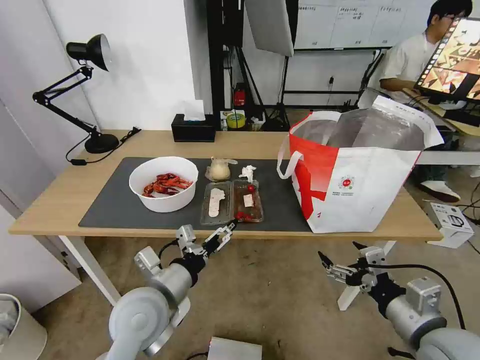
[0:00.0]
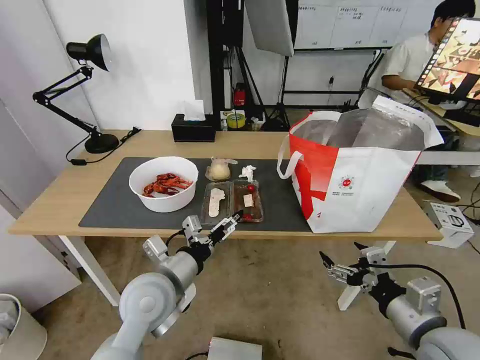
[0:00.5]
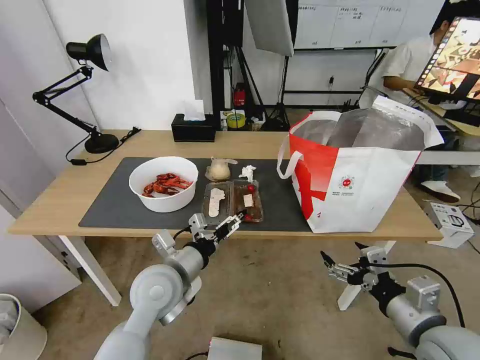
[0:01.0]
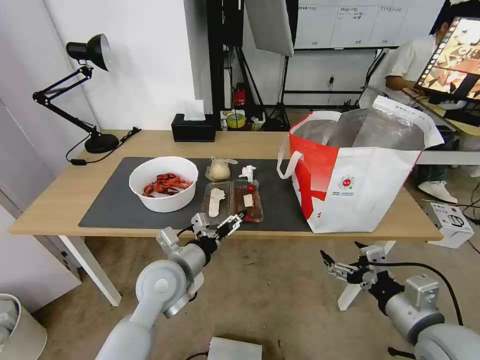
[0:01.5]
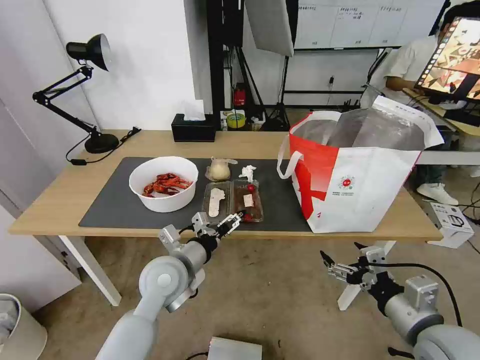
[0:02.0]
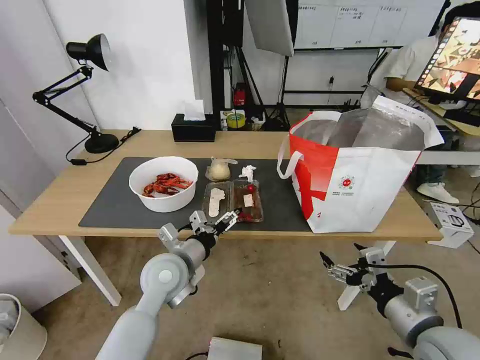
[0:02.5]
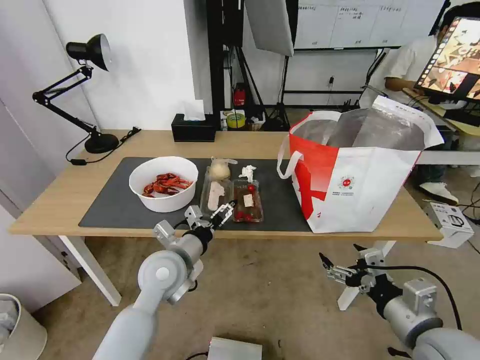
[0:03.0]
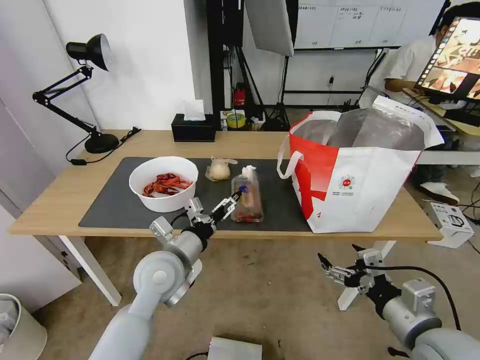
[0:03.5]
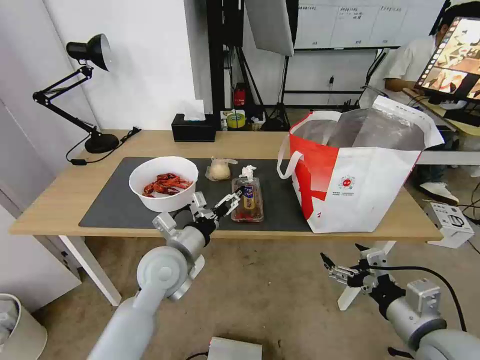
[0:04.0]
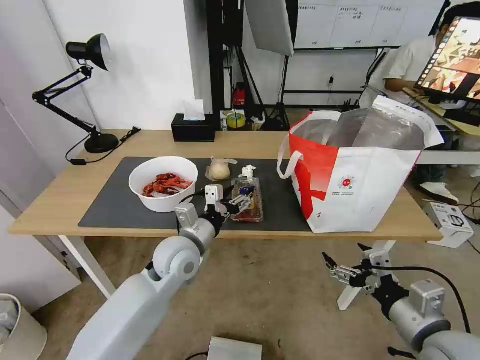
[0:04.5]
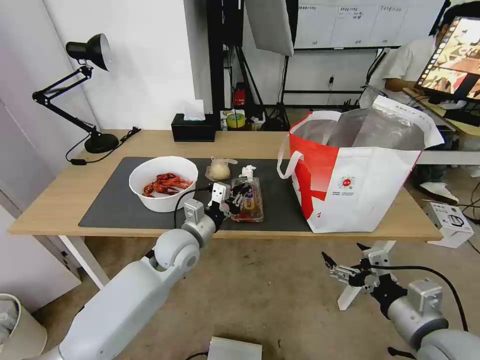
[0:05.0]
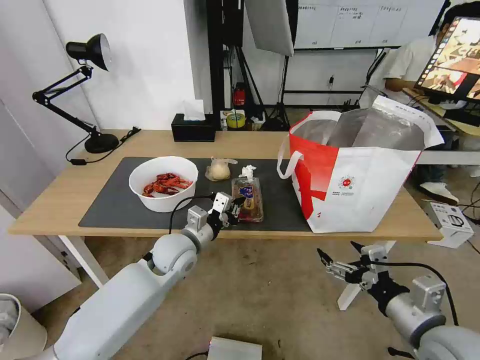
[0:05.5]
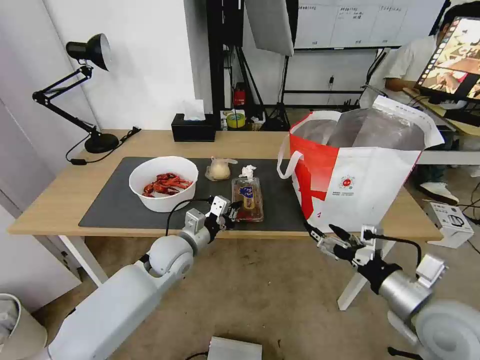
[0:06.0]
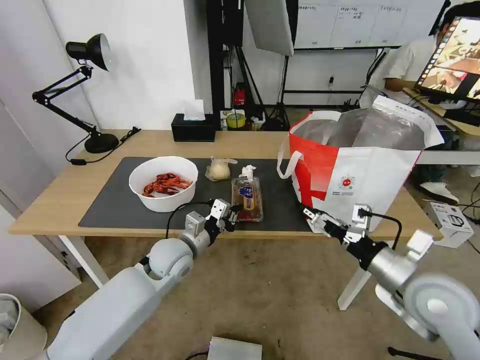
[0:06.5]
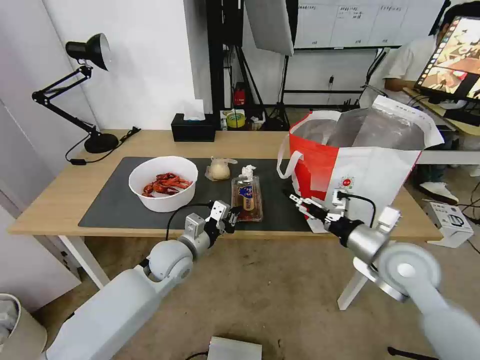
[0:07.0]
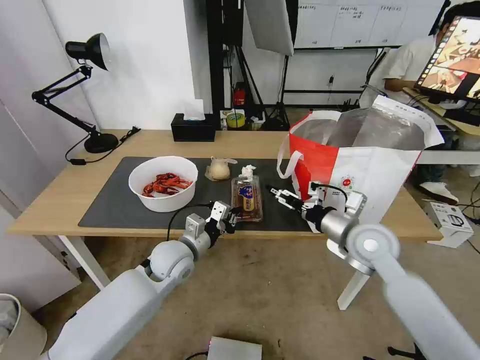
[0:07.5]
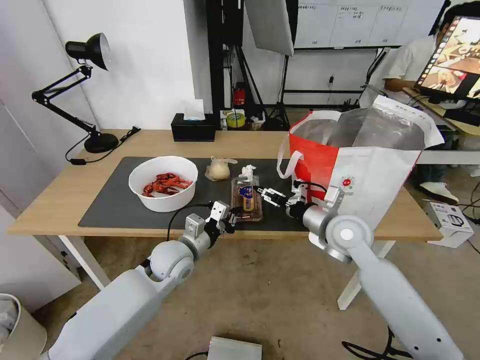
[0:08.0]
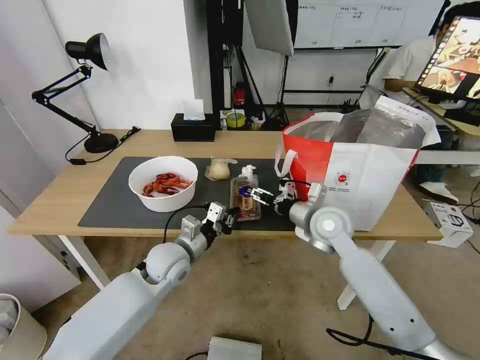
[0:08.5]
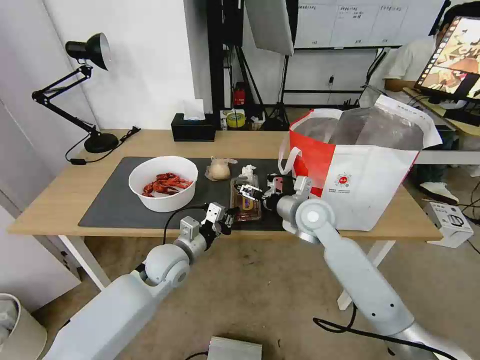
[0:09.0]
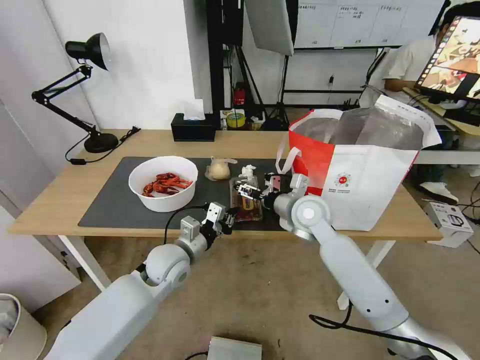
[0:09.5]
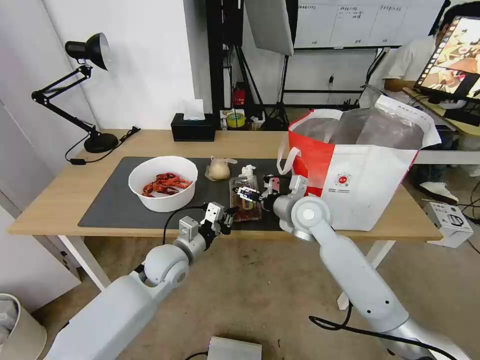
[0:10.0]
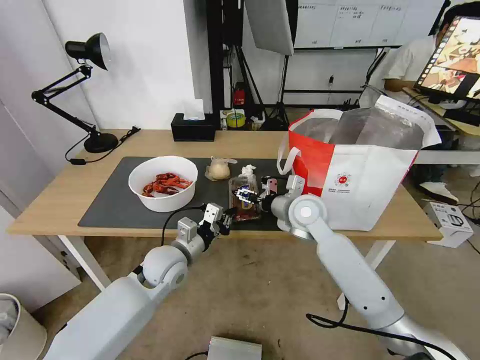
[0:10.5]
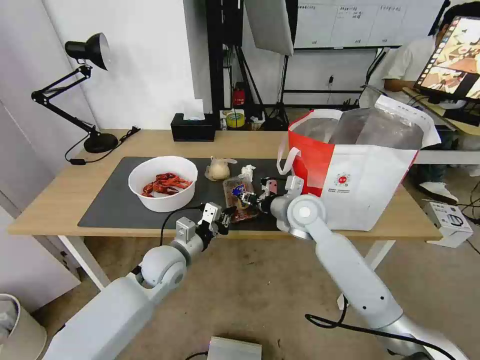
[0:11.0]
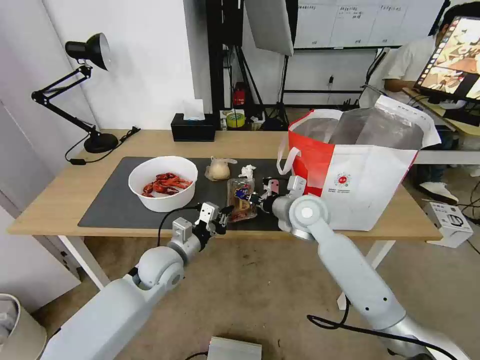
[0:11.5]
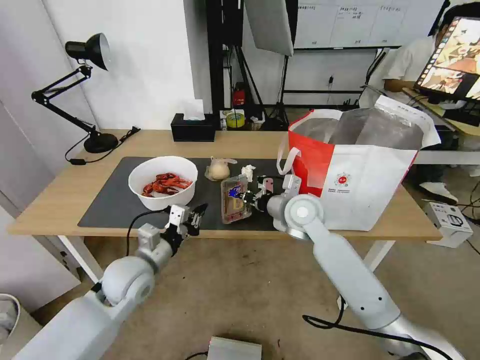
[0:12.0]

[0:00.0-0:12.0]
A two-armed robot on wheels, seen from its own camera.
Task of the whole recording: Pick up the trash from the table and place it into the takeout bag.
0:00.0 to 0:02.0: The left gripper moves forward, some 5 cm.
0:02.0 to 0:04.0: The grippers make only small movements.
0:04.0 to 0:06.0: The left gripper moves forward and downward, some 10 cm, and closes its fingers.
0:06.0 to 0:08.0: The right gripper moves forward and to the left, about 20 cm.
0:08.0 to 0:10.0: The right gripper travels to the left and forward by about 10 cm.
0:10.0 to 0:12.0: The right gripper closes its fingers. The left gripper travels to the left by some 5 cm.

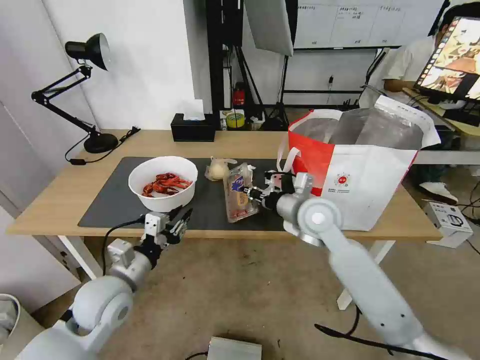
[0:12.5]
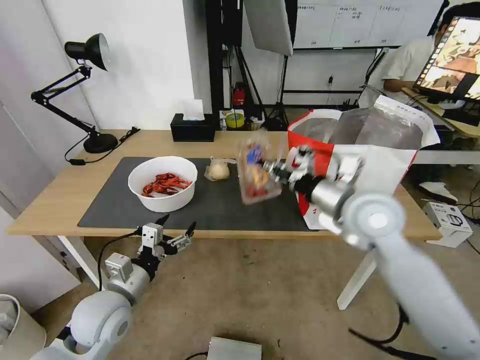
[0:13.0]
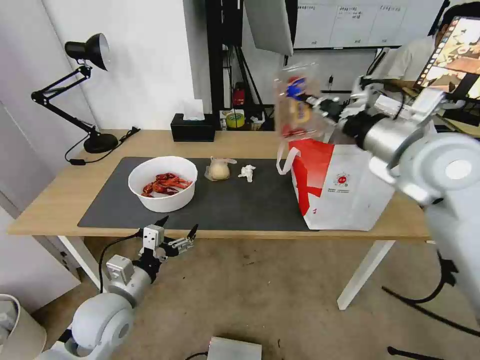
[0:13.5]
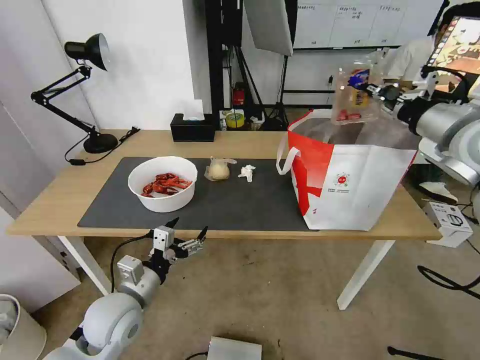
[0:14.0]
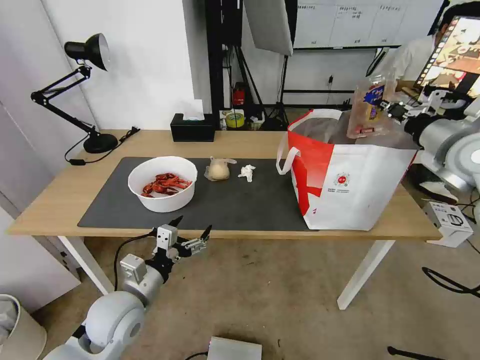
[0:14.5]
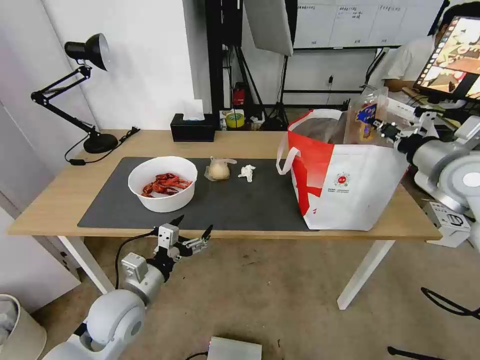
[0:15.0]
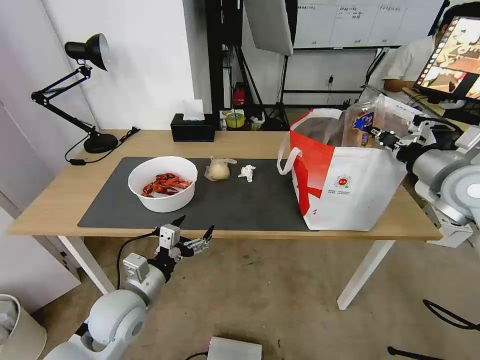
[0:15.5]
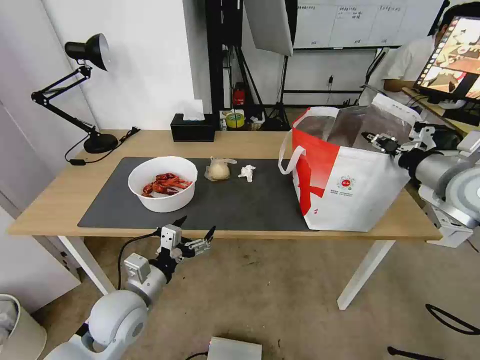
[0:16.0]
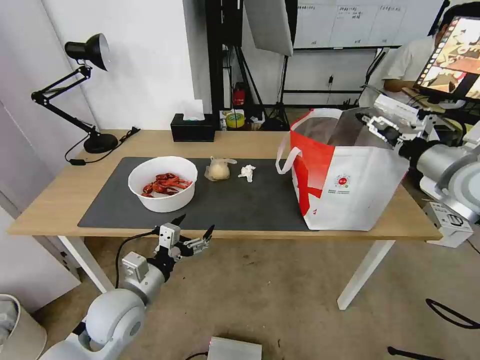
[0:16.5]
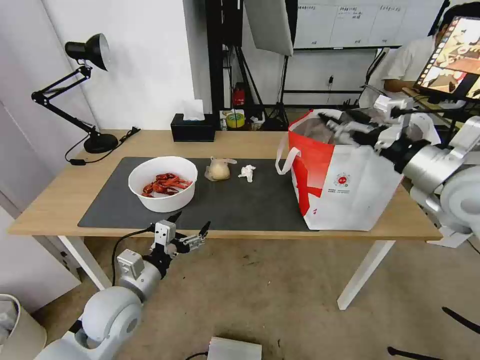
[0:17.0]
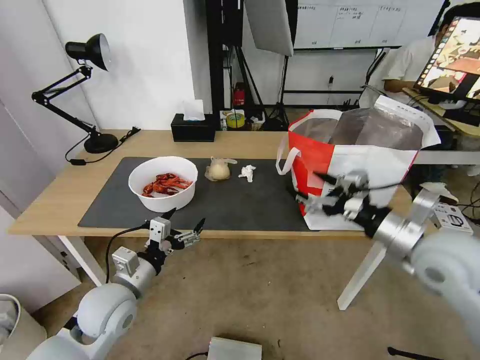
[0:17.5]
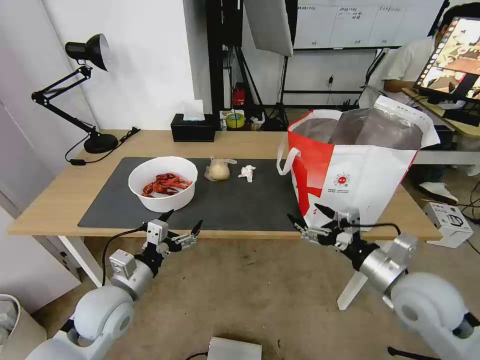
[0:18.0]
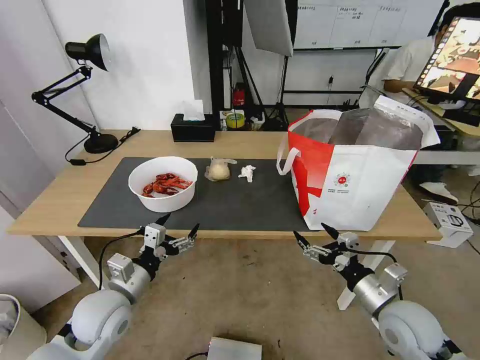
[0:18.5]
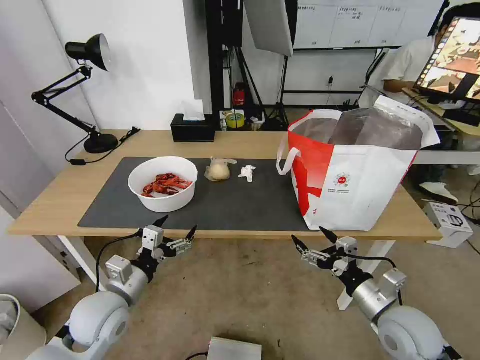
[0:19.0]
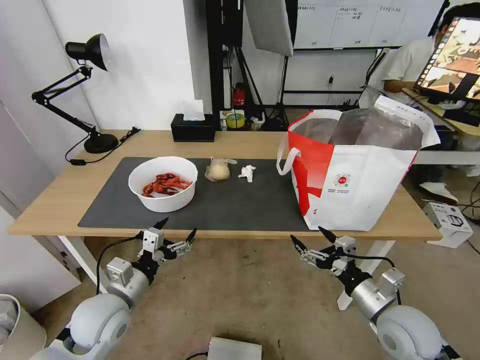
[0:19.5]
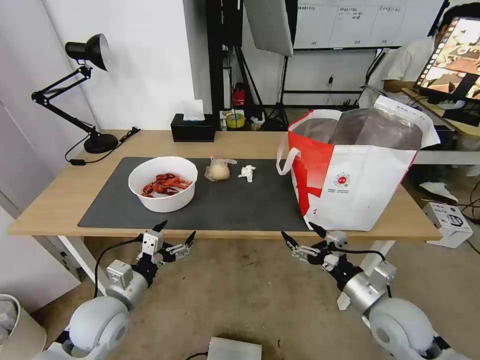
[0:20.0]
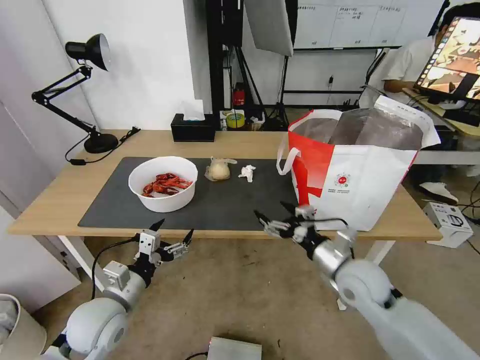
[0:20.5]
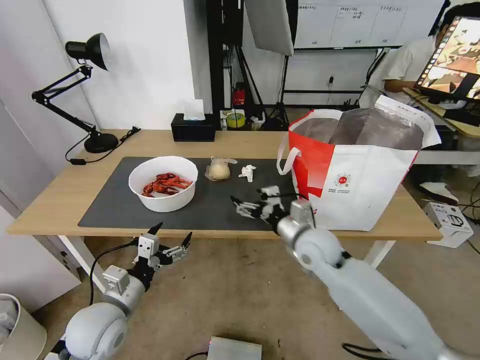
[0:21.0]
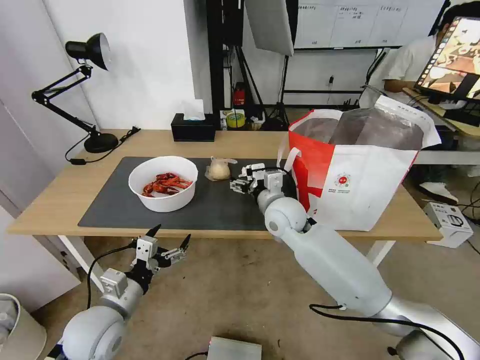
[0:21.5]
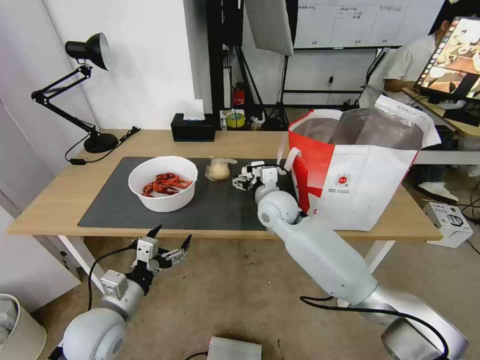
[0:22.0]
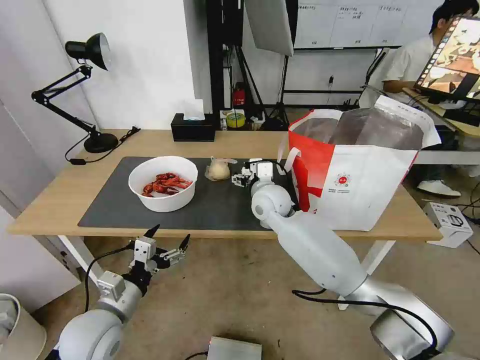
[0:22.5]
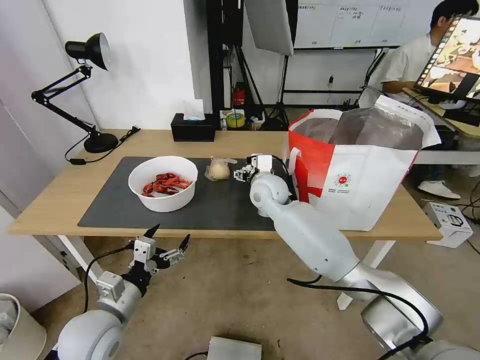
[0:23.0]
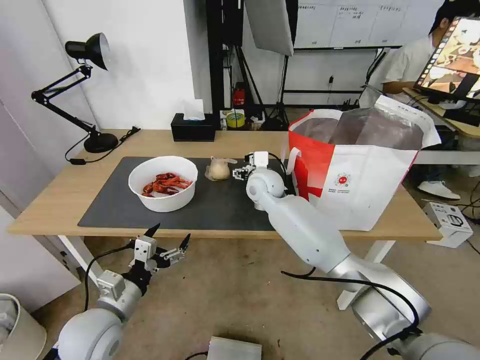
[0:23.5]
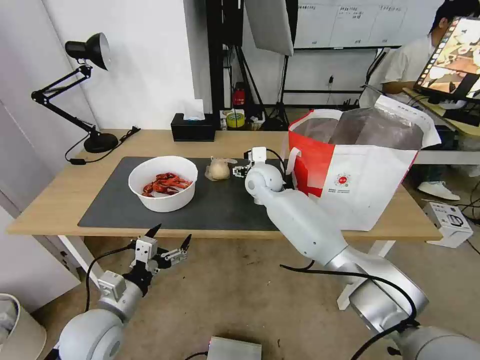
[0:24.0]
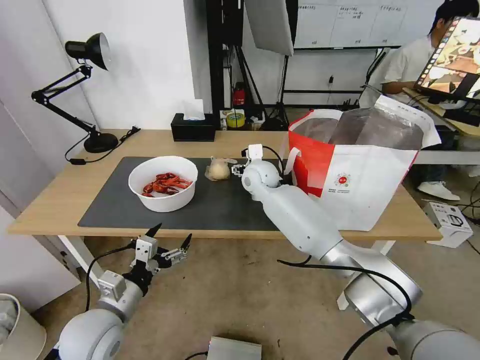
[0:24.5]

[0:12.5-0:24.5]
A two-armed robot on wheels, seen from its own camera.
Task of the whole recording: Pick up the trash from the table and place it into the takeout bag.
0:12.5 to 0:14.5: The right gripper shifts some 30 cm to the right and upward; the left gripper opens.
0:14.5 to 0:16.5: The right gripper shifts by roughly 5 cm, and opens its fingers.
0:16.5 to 0:18.5: The right gripper heads downward and backward, covering approximately 25 cm.
0:18.5 to 0:20.5: The right gripper is displaced forward and to the left by roughly 10 cm.
0:20.5 to 0:22.5: The right gripper travels forward and to the left by approximately 25 cm.
0:22.5 to 0:24.5: The right gripper goes about 10 cm forward.

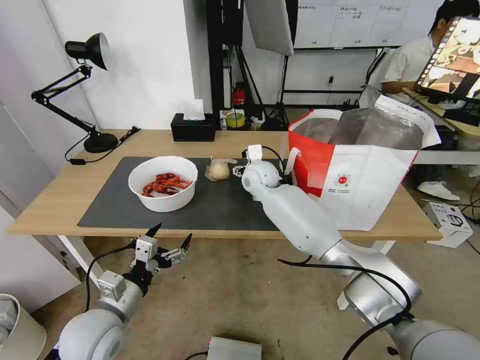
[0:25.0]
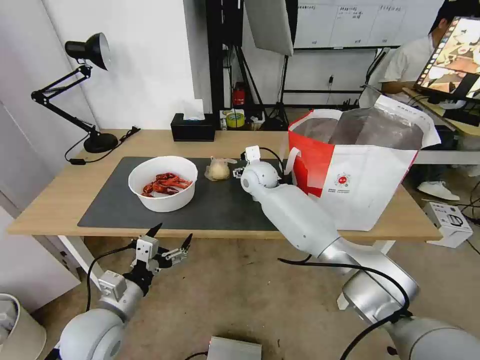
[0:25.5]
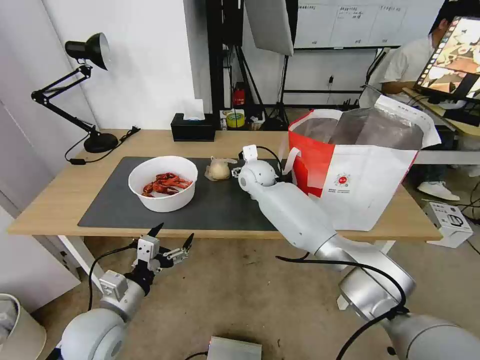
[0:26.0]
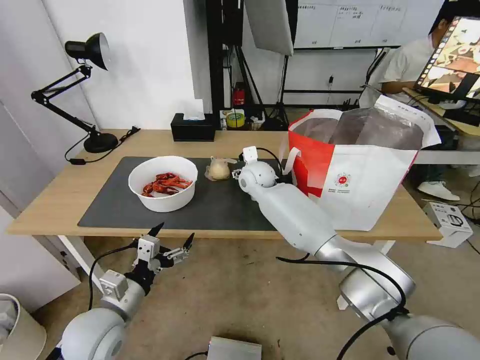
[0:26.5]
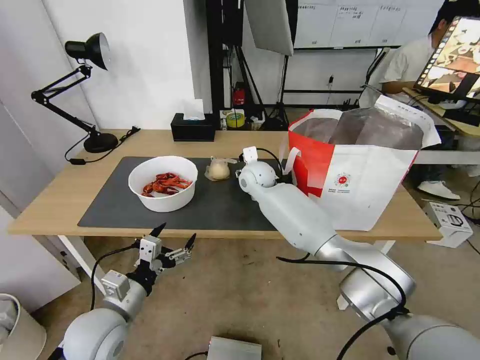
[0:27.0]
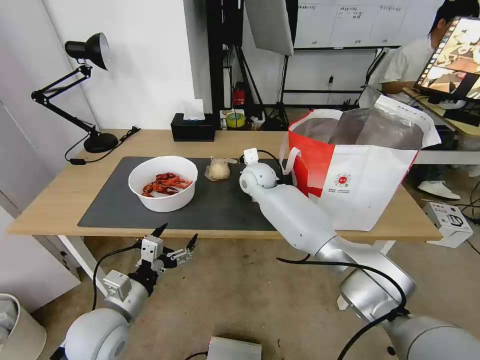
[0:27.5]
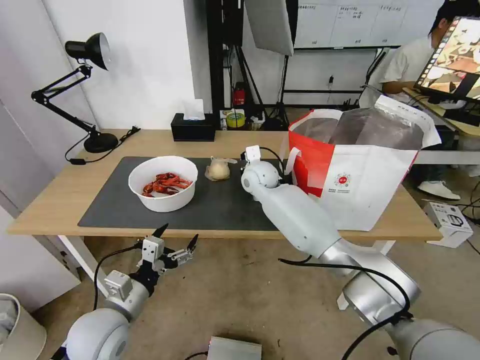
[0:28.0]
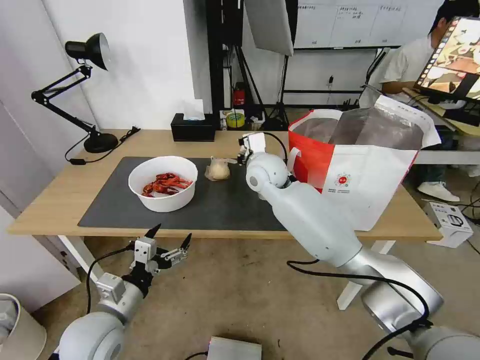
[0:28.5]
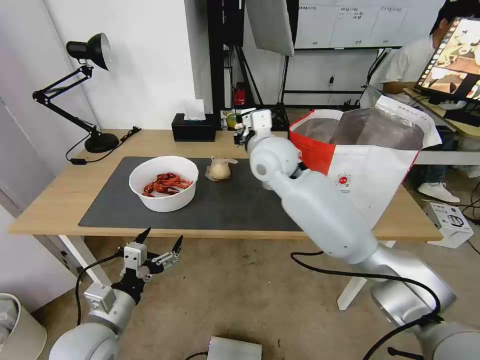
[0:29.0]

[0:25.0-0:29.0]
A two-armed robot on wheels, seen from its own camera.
Task of the whole recording: Pick up the trash from the table and place it into the takeout bag.
0:25.0 to 0:27.0: The grippers stay close to where they were, moving slightly.
0:27.0 to 0:29.0: The right gripper goes about 15 cm upward and backward, and closes up.
